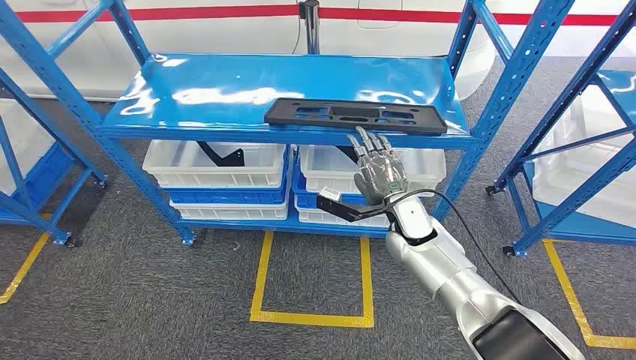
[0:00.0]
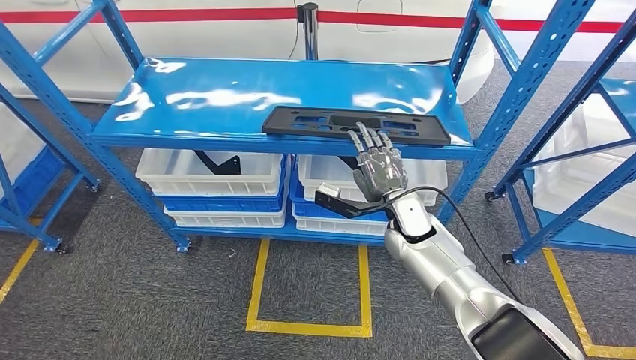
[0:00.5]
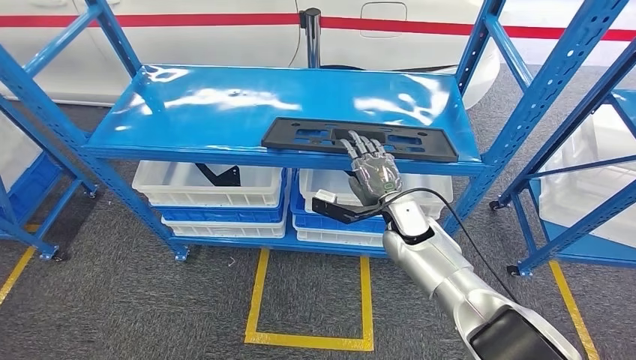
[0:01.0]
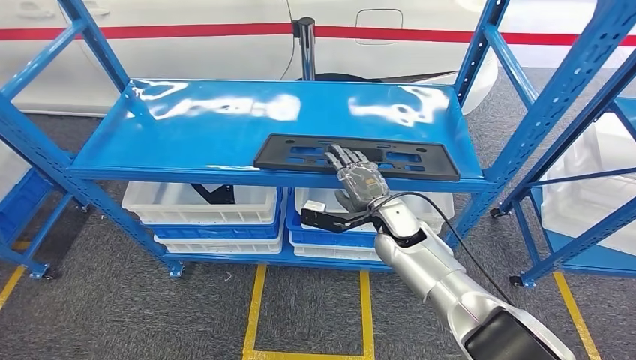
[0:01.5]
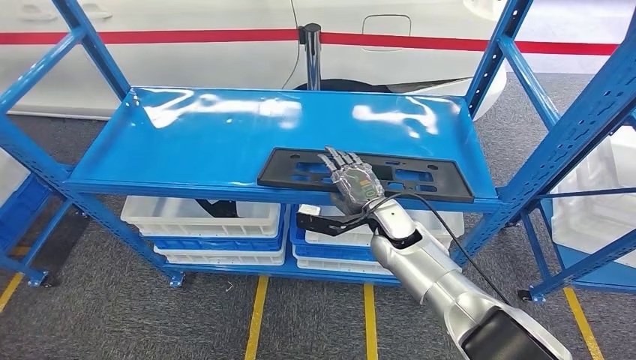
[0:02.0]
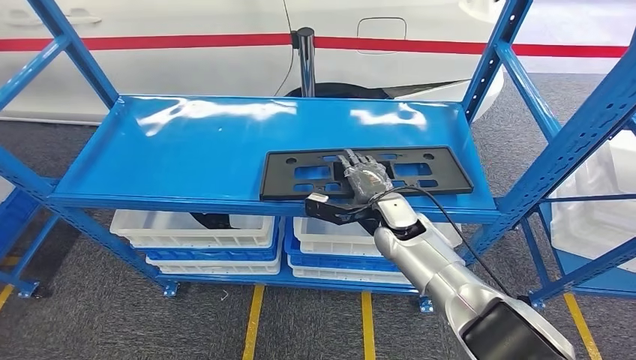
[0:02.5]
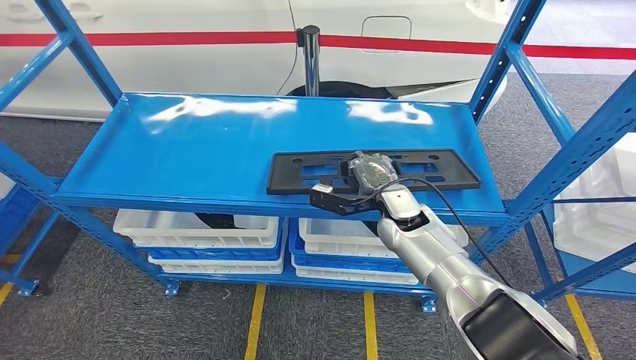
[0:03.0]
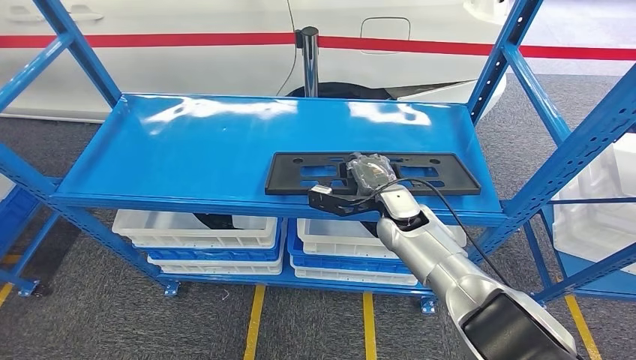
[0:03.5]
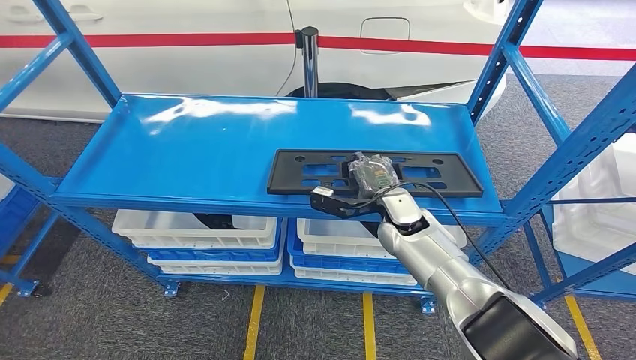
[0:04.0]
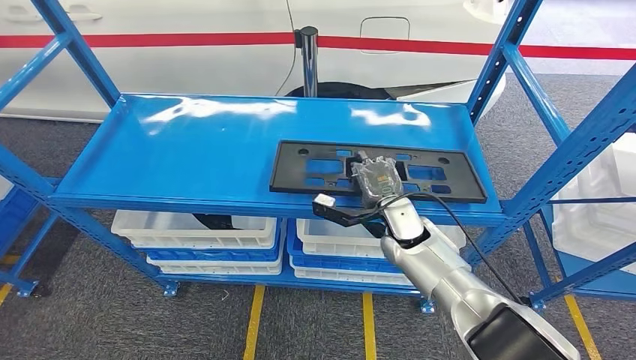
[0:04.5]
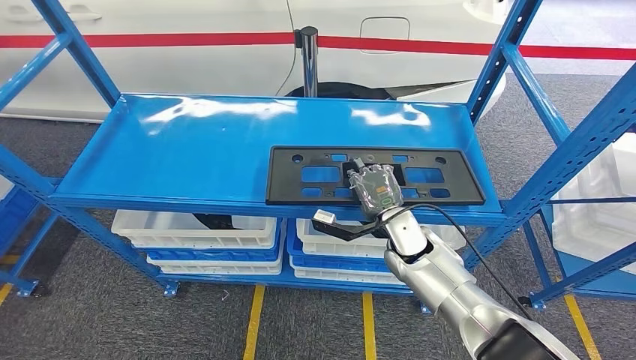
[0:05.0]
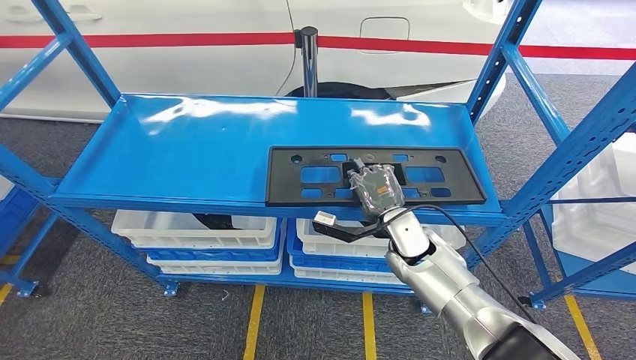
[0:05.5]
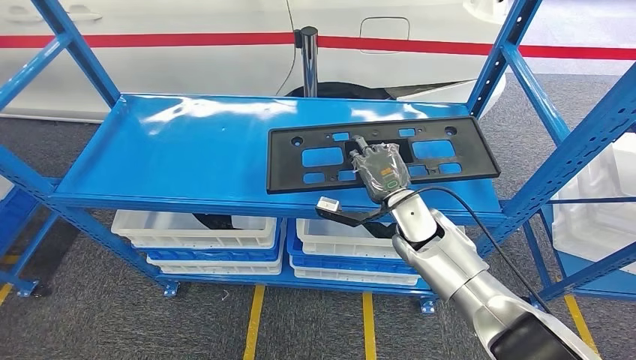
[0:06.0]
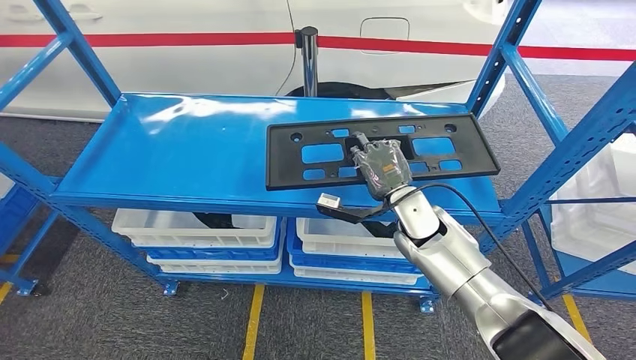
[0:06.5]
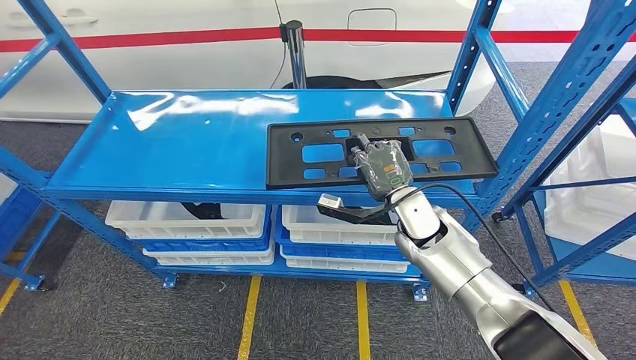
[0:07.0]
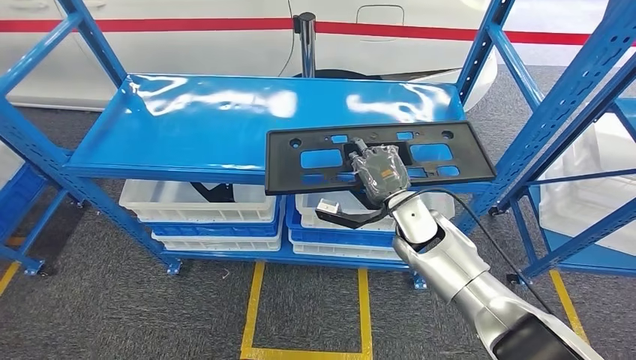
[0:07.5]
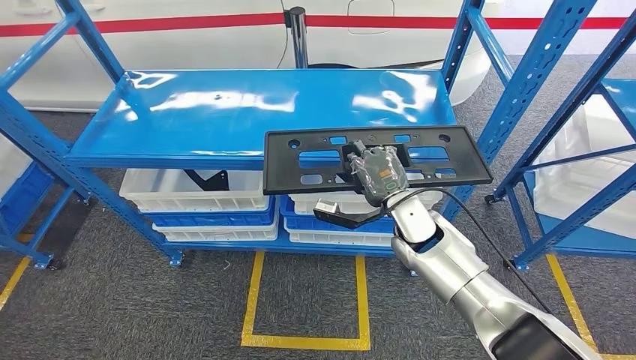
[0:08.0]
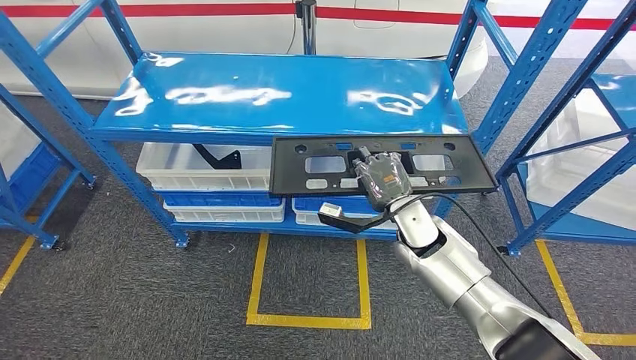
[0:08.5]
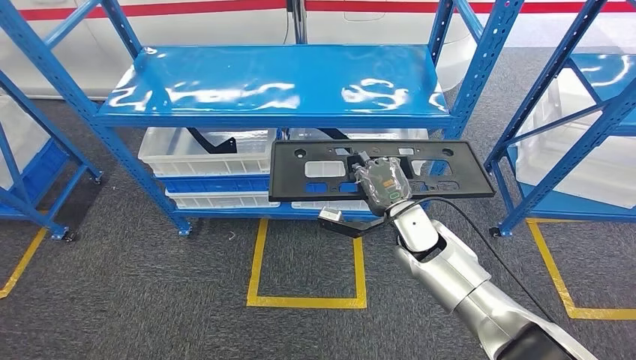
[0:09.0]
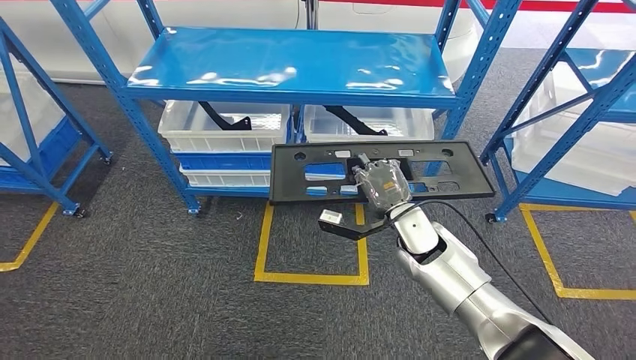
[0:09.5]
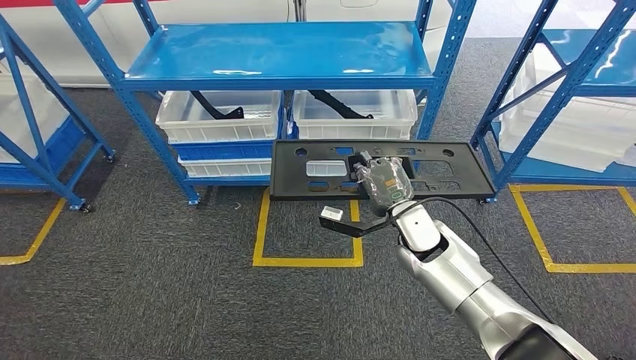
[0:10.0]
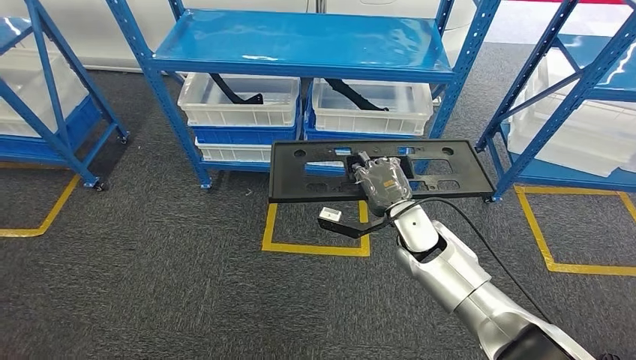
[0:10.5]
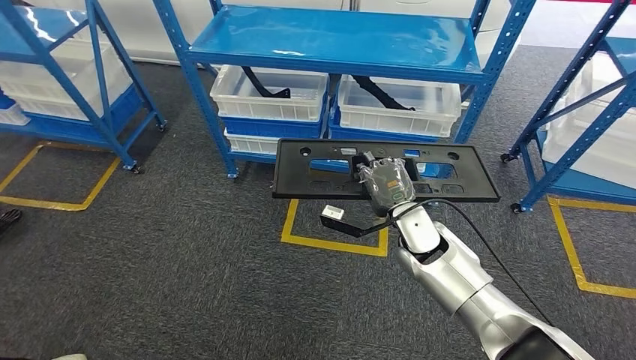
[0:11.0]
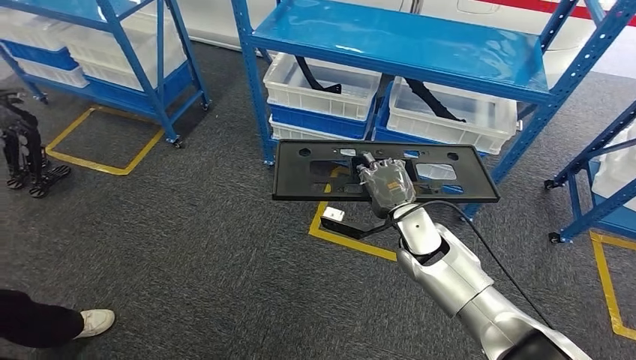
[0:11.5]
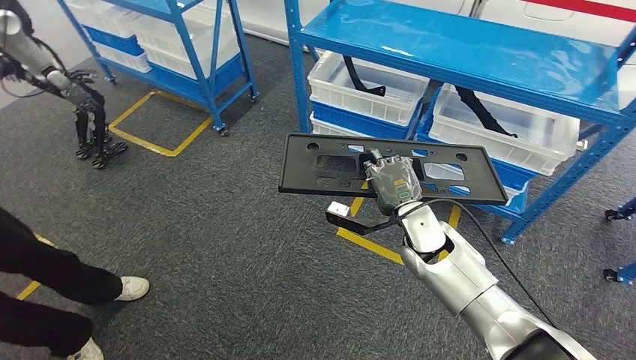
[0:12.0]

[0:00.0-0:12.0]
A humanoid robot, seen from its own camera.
Step, 0:00.0 to 0:09.5: Pick up the large material from the shelf.

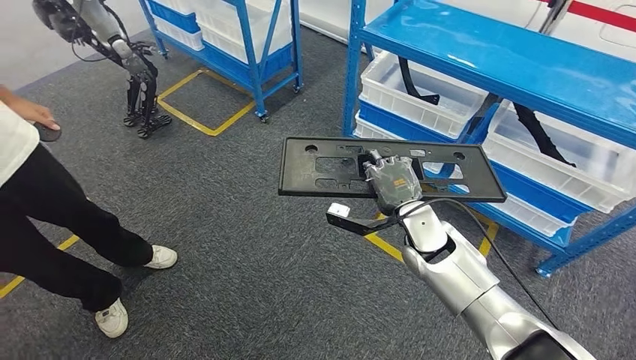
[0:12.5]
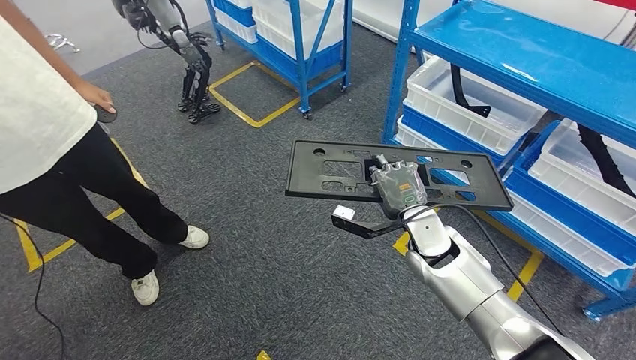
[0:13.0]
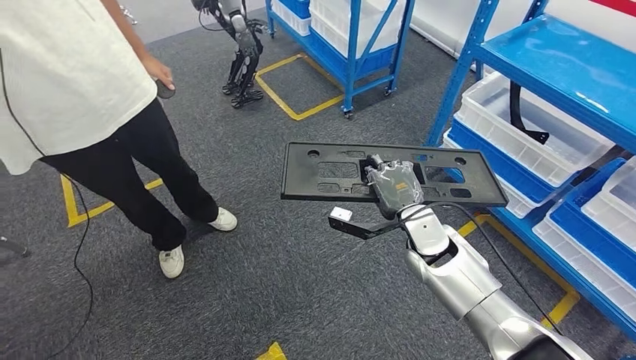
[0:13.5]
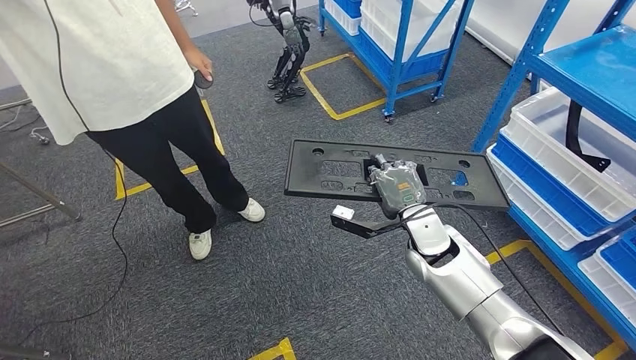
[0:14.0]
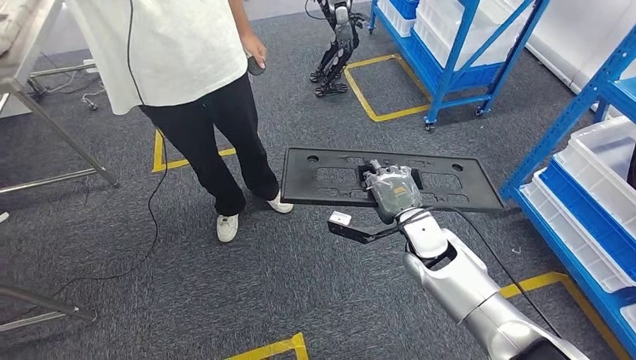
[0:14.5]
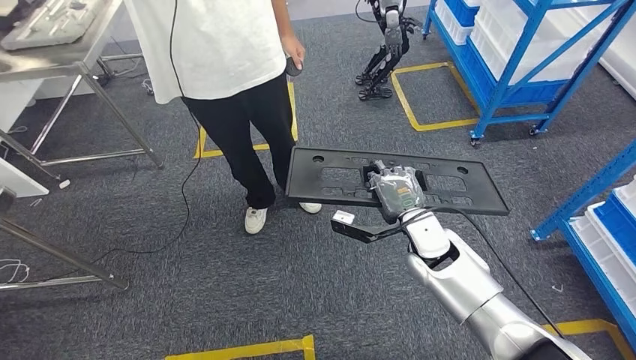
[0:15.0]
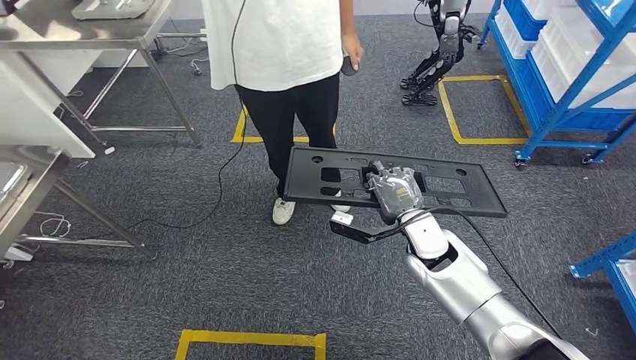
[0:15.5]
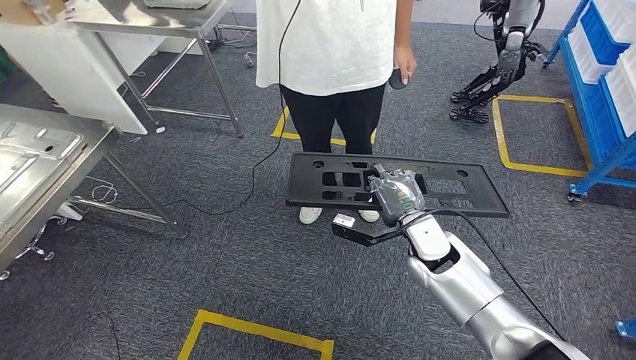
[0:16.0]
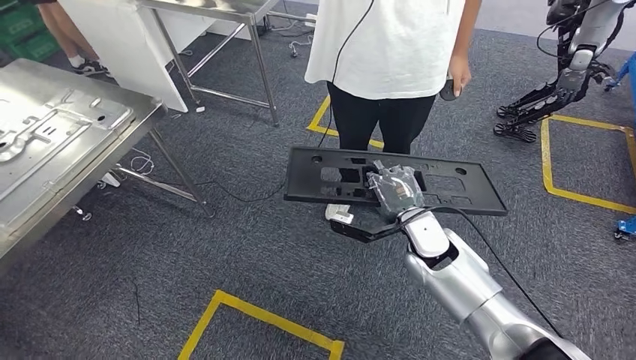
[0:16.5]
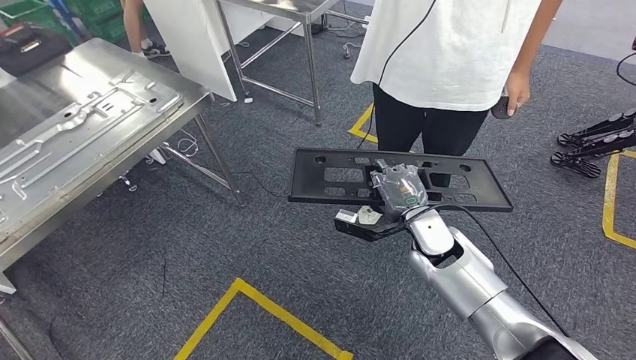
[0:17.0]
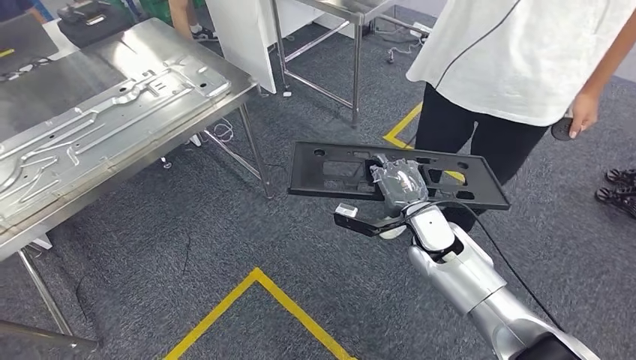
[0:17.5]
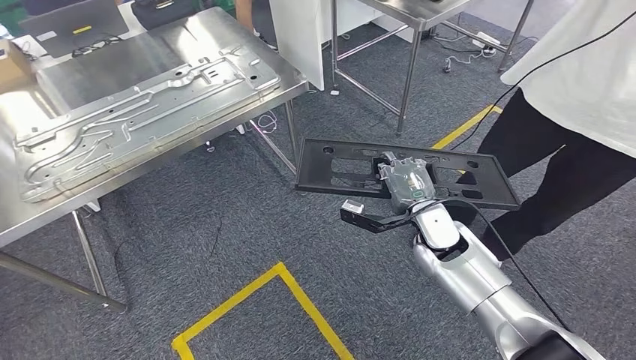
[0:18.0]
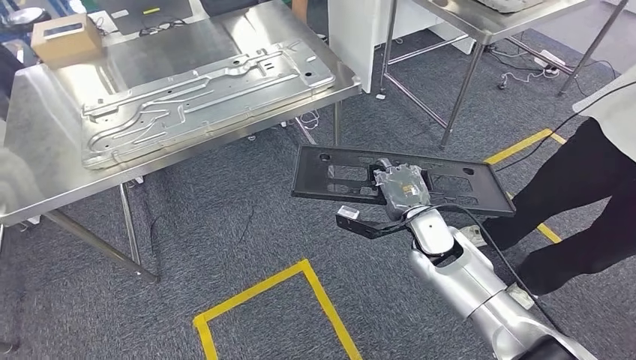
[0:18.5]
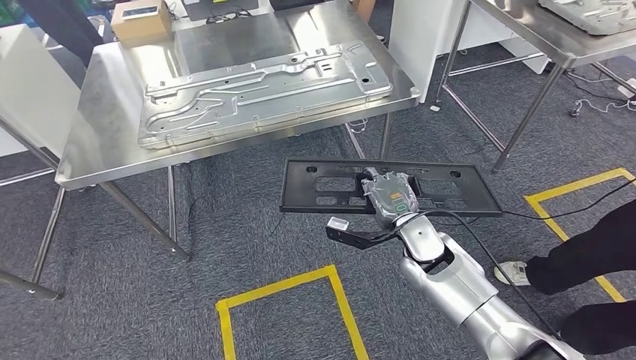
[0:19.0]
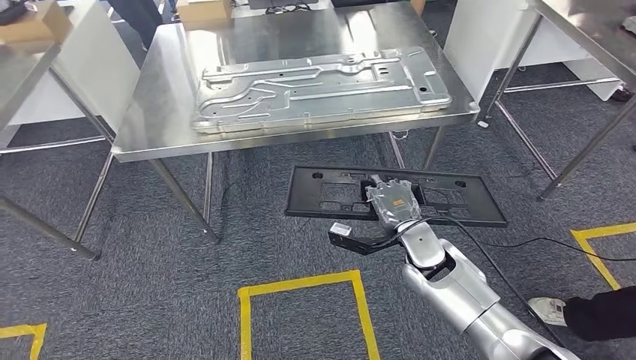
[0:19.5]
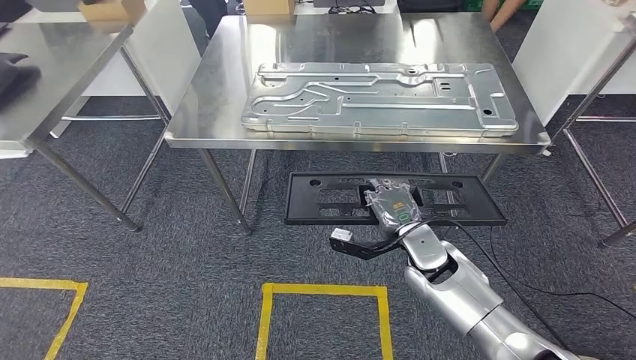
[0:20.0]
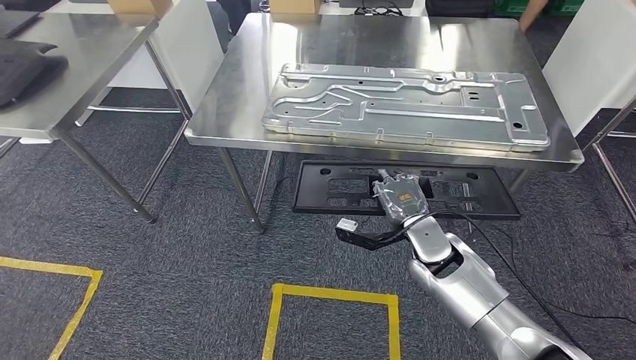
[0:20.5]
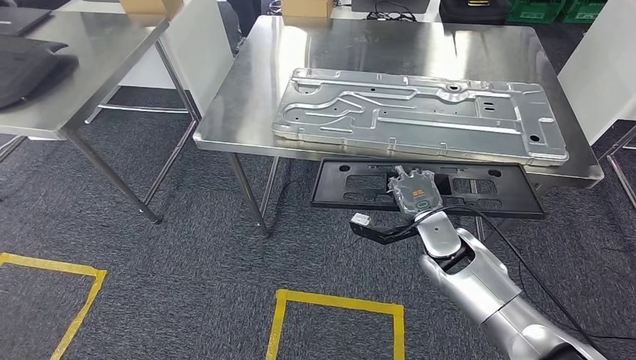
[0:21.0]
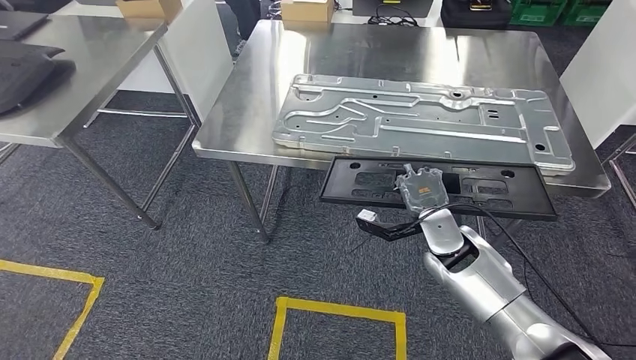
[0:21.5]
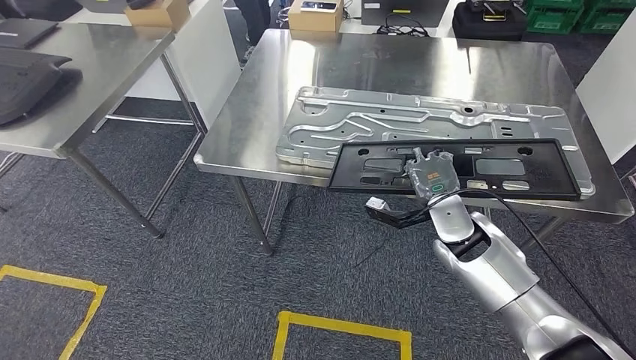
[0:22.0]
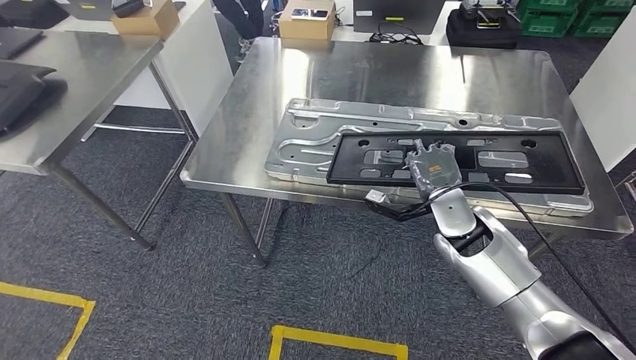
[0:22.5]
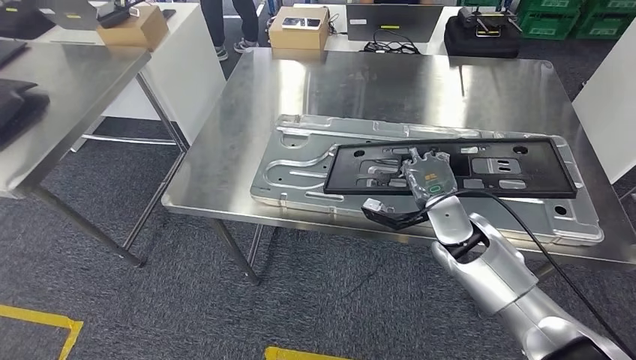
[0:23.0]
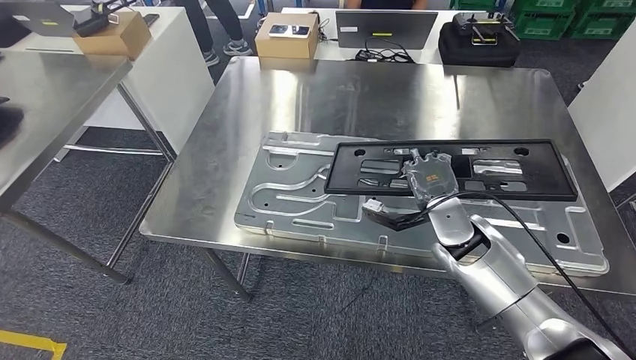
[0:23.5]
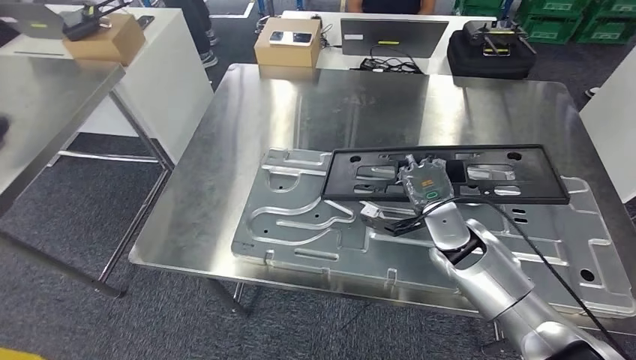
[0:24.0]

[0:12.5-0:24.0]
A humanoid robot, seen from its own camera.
Step, 0:12.5 to 0:20.0: Move the large material to the workbench.
